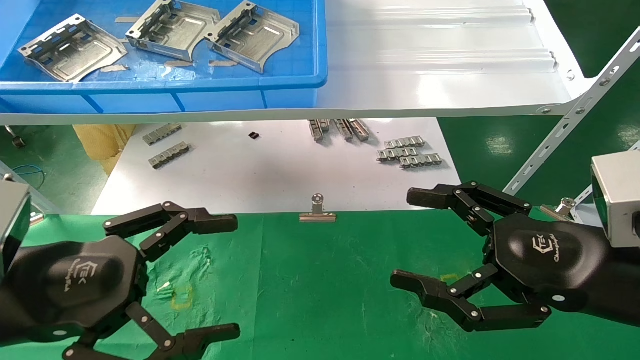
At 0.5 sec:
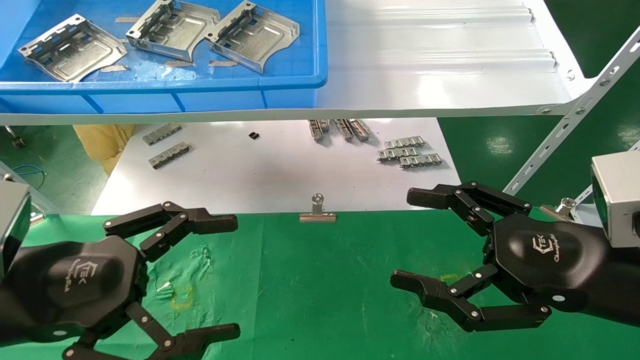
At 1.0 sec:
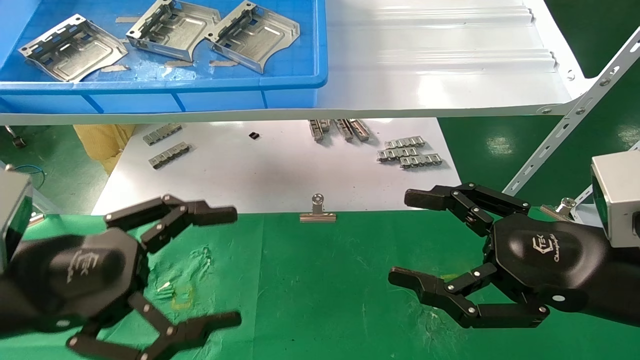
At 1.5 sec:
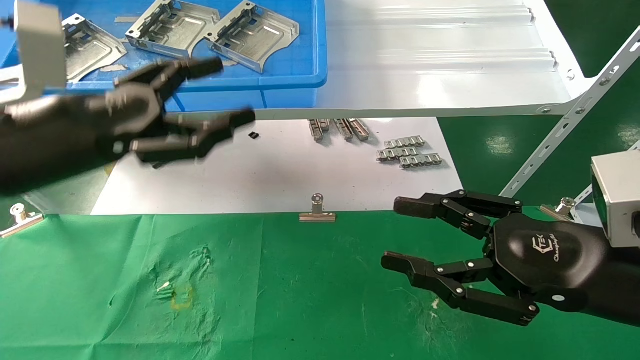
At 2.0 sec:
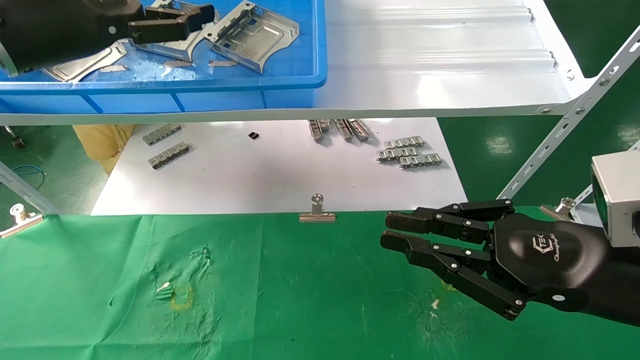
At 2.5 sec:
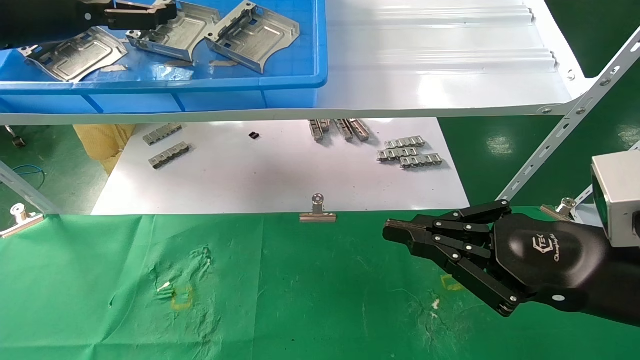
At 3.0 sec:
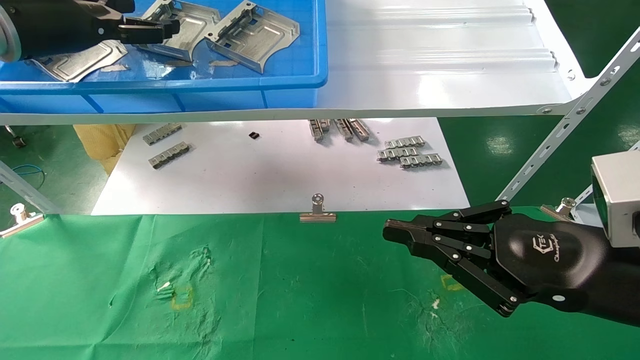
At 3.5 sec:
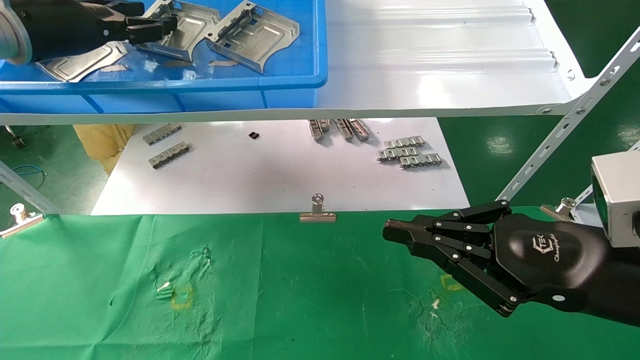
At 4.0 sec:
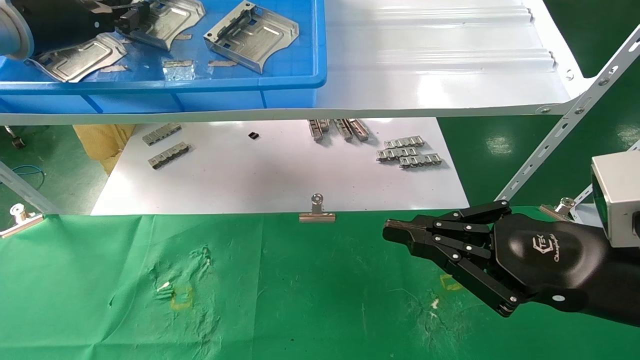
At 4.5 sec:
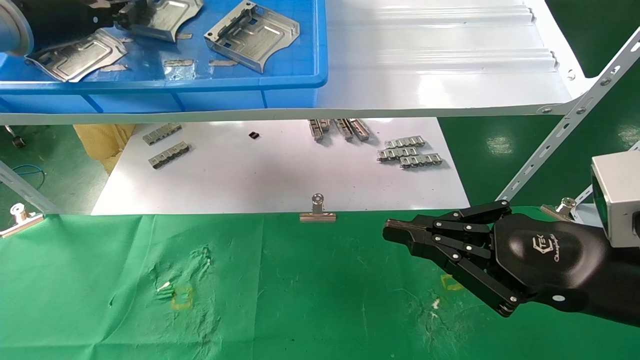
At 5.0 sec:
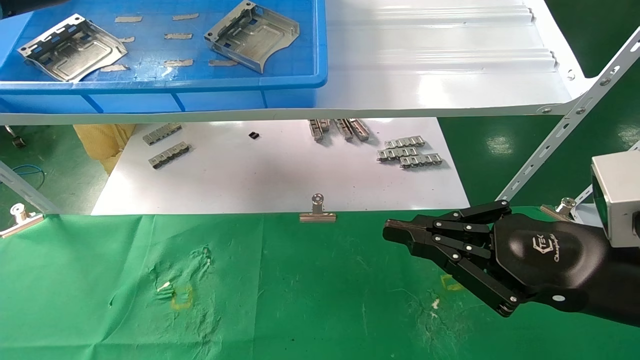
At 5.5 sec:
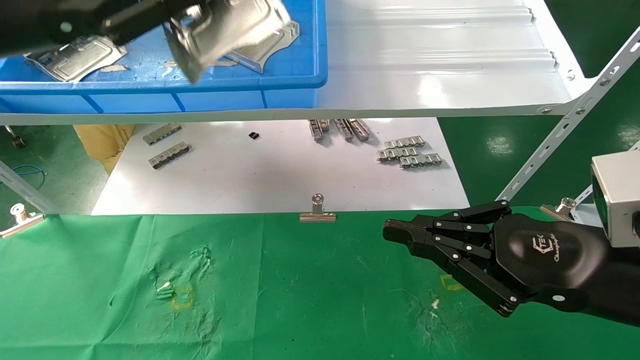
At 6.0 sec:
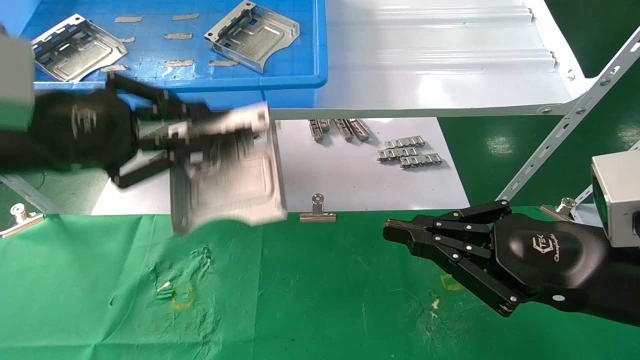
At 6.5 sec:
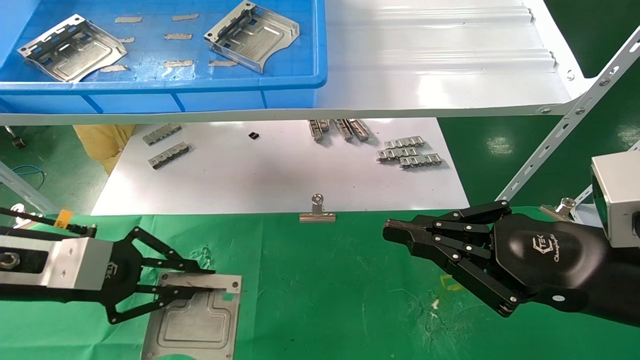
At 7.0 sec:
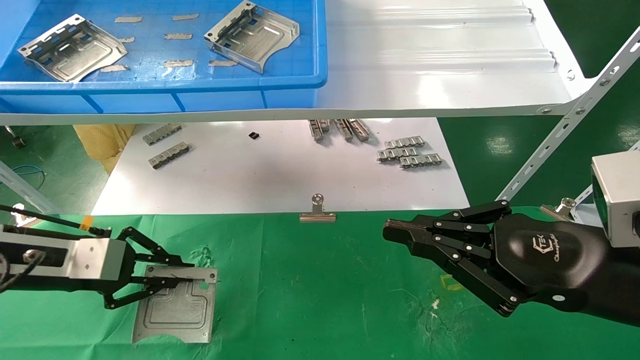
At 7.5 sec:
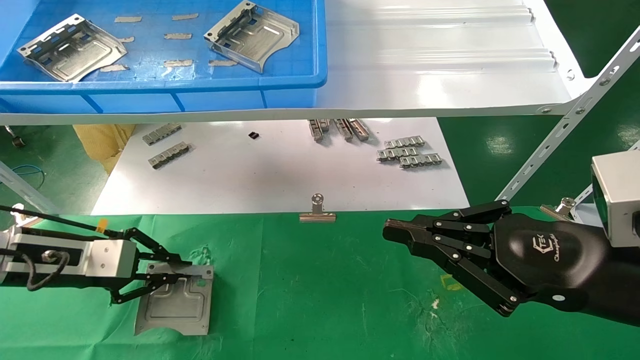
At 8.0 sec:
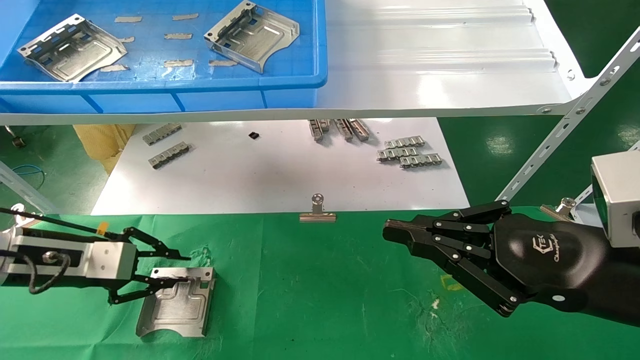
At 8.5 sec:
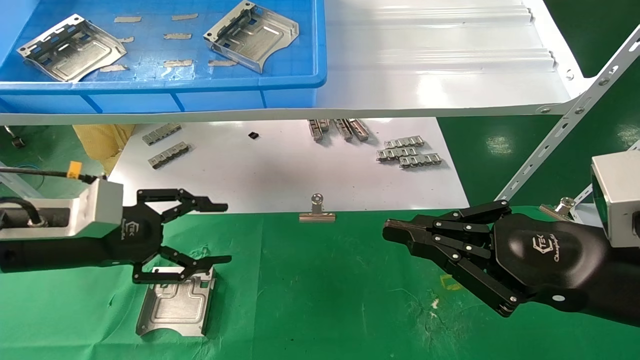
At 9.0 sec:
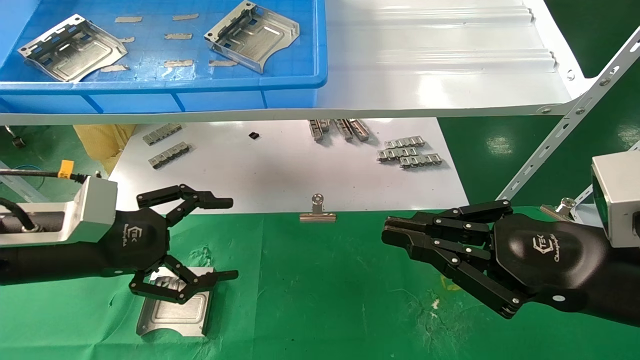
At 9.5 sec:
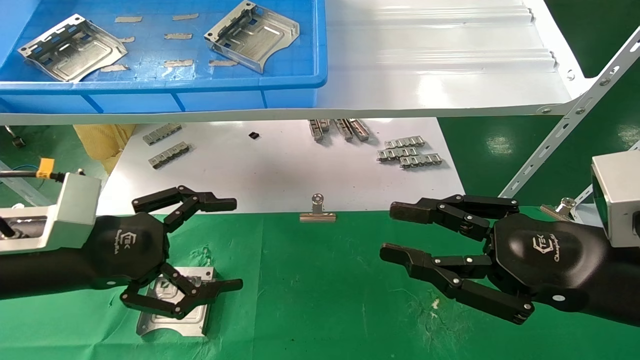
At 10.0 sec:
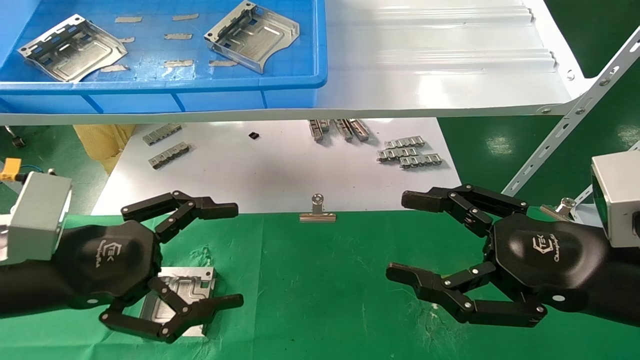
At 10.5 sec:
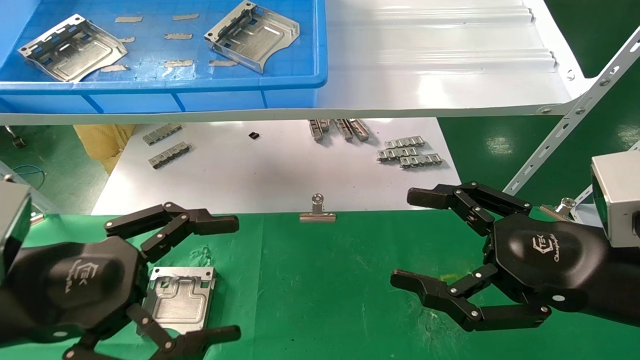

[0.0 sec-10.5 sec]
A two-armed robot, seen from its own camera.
Task of the whole recording: use the mechanical arm to pick up the parts and place them on the table.
Step, 1.5 sec to 4.0 sec: Pick up the hard drive bracket from the feeding area.
Step, 4.5 sec to 8.0 sec: Place the hard drive bracket into the box.
0.0 sec to 2.0 sec: The left gripper travels upward and forward by about 25 cm. The right gripper closes its fingers.
2.0 sec to 4.0 sec: The left gripper goes roughly 5 cm forward, and closes.
4.0 sec to 6.5 sec: The left gripper heads downward and backward, covering roughly 25 cm.
6.5 sec to 8.5 sec: The left gripper opens up.
8.5 sec to 10.5 sec: The left gripper shifts about 10 cm backward, and opens. Meanwhile the right gripper opens up.
